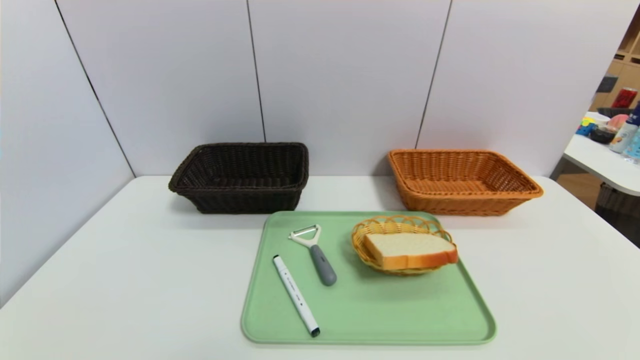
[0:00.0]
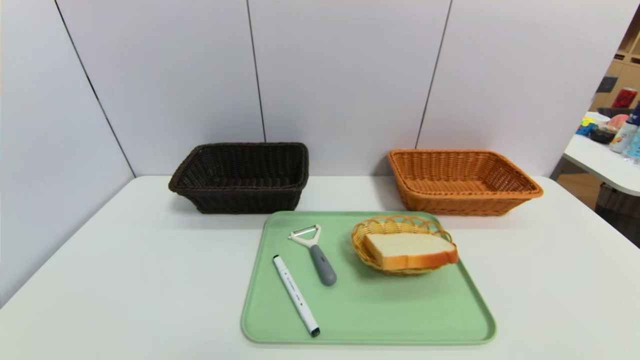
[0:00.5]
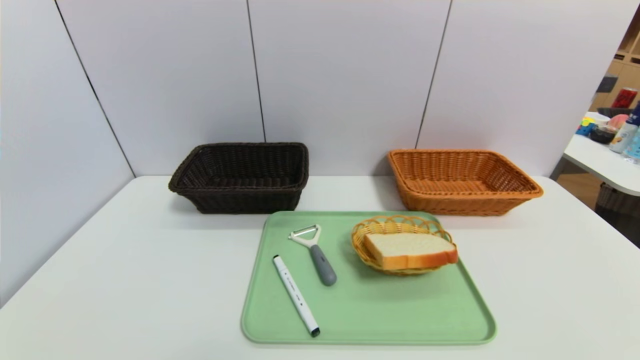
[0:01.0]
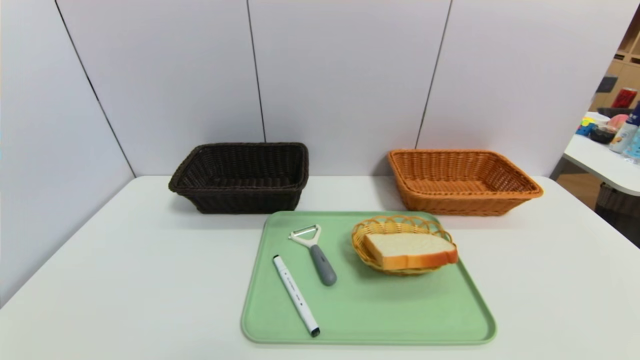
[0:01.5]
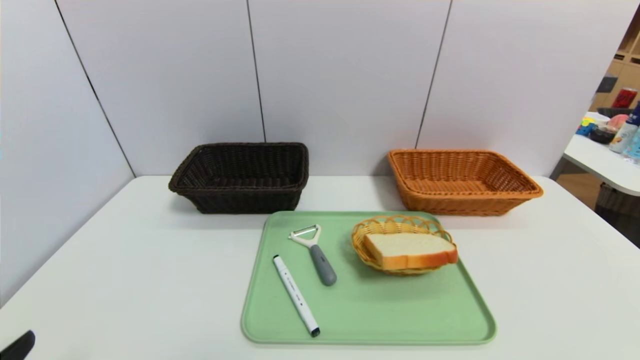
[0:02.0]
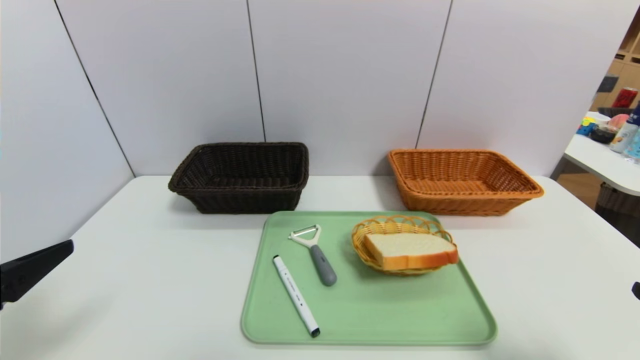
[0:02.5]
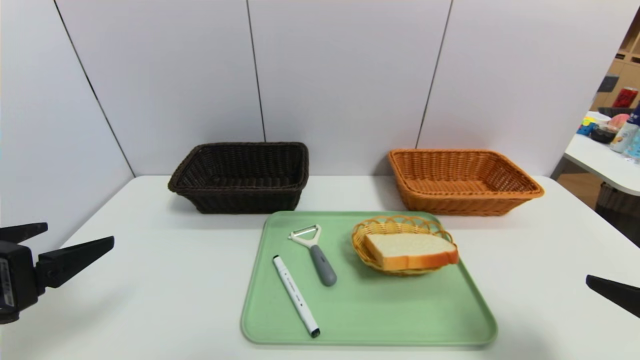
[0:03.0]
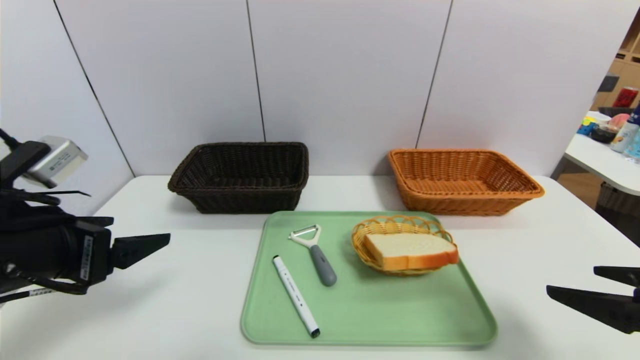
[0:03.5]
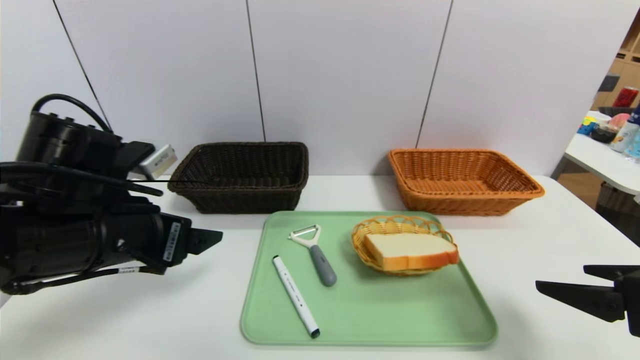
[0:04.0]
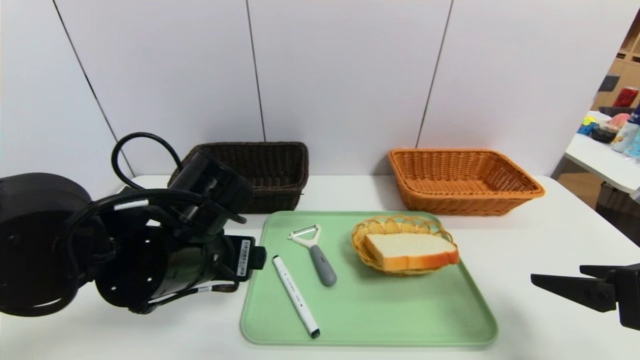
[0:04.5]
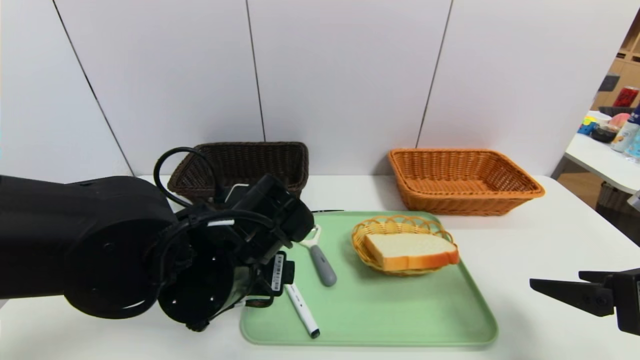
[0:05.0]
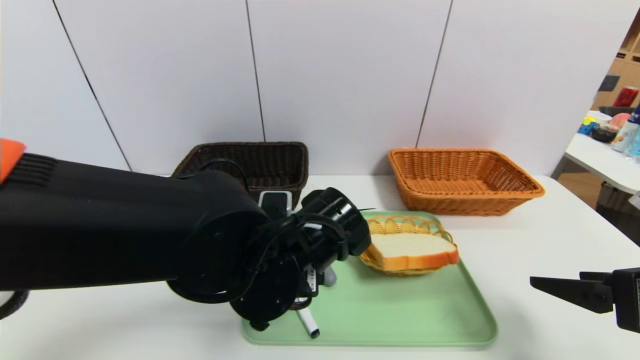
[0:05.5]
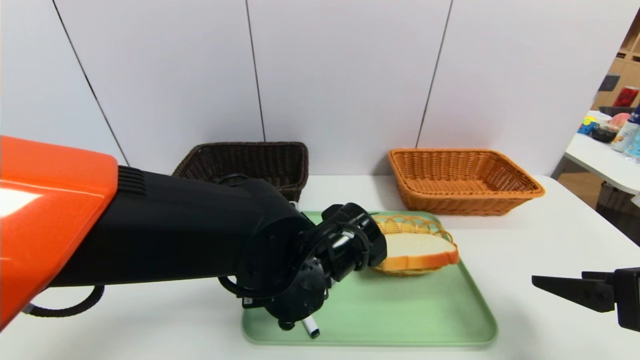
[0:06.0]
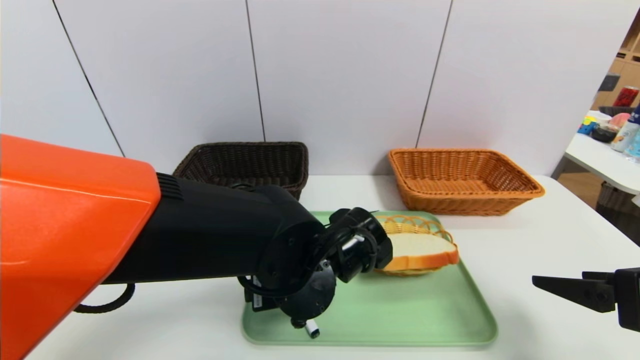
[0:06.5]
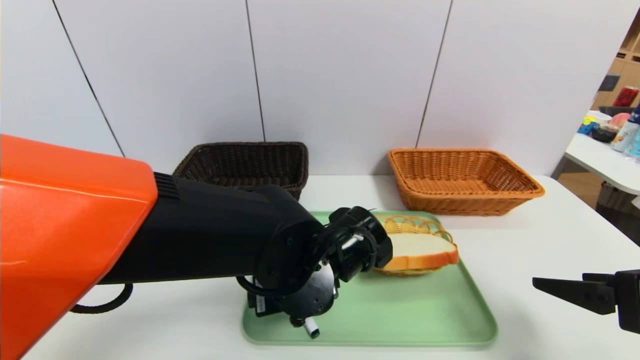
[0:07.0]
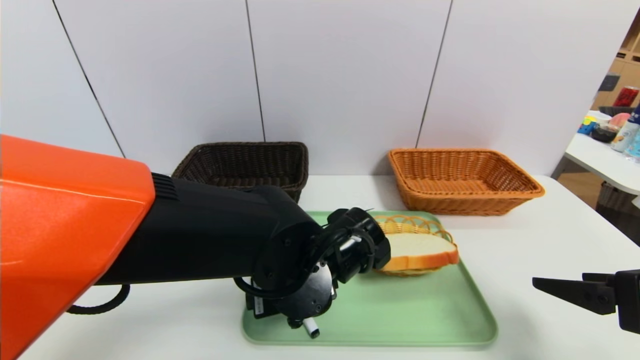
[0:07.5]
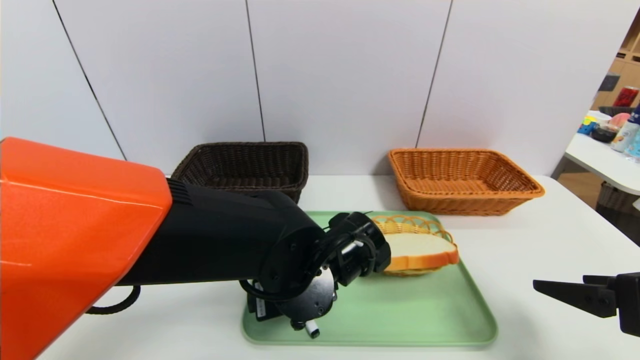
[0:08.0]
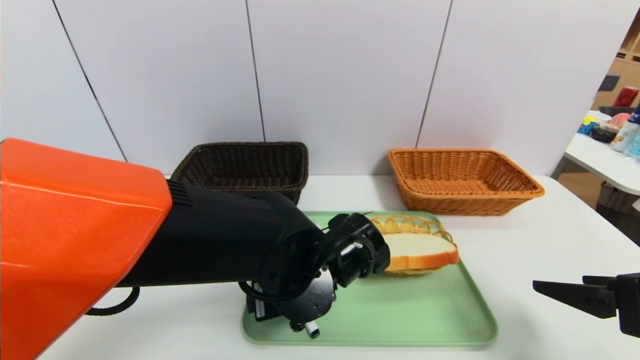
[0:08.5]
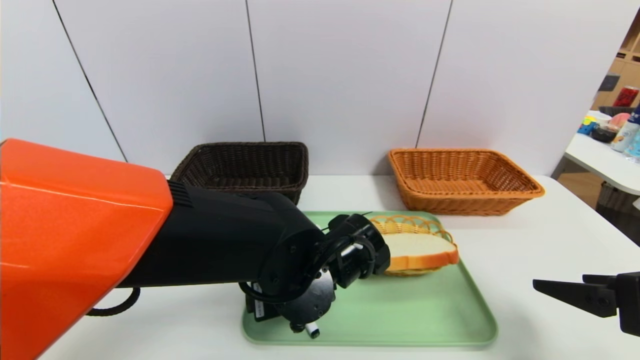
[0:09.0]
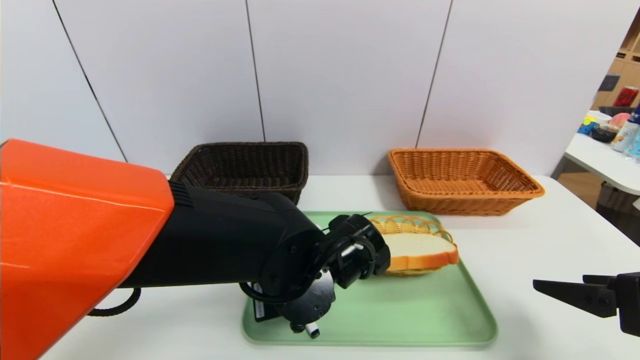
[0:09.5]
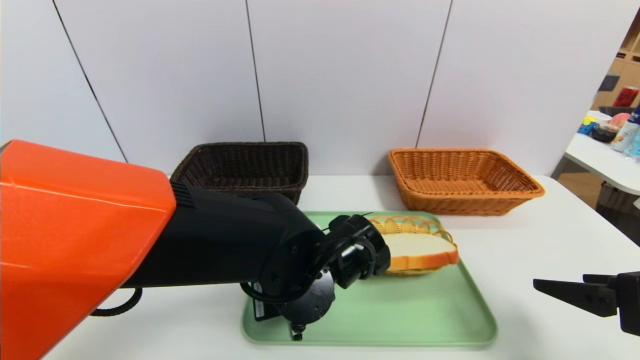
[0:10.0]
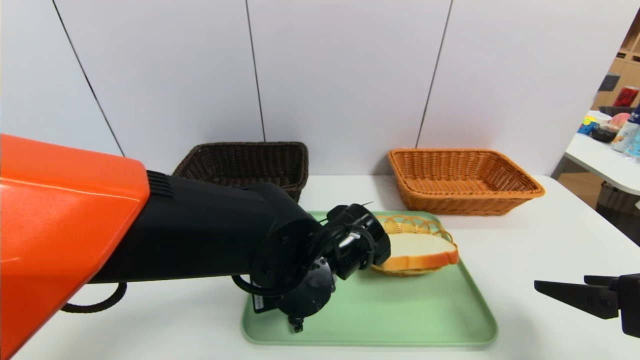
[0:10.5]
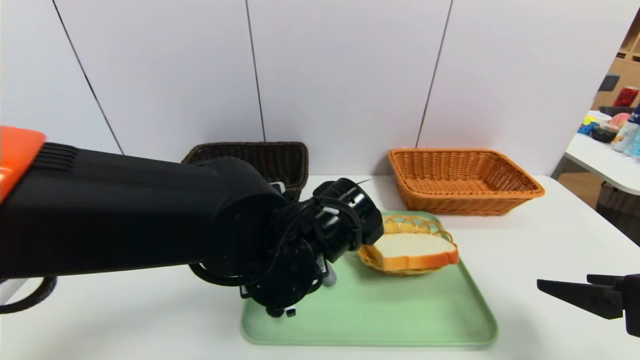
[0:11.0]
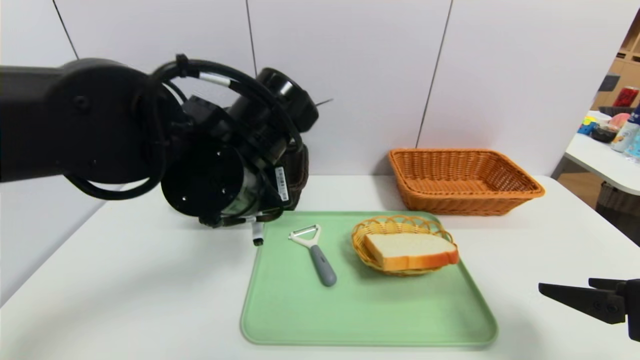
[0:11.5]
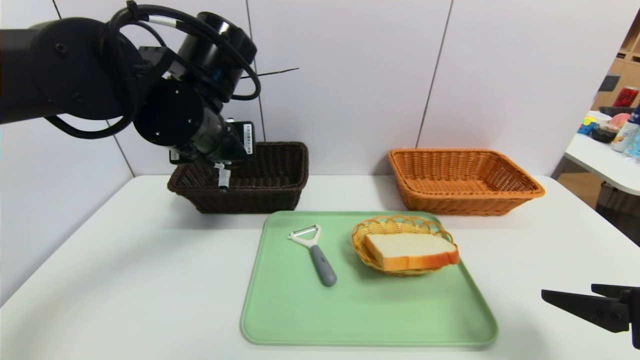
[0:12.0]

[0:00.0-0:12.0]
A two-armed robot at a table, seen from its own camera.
Task of the whole recording: place the food in the right basket with the right gripper, and place the non food items in the left basket with the left gripper.
0:02.0 to 0:04.0: The left gripper moves forward and to the right, roughly 20 cm. The right gripper goes some 15 cm forward.
0:04.0 to 0:06.0: The left gripper shifts roughly 20 cm to the right.
0:06.0 to 0:08.0: The grippers stay close to where they were, moving slightly.
0:08.0 to 0:10.0: The left gripper closes up.
0:10.0 to 0:12.0: The left gripper goes about 20 cm upward, to the left and forward.

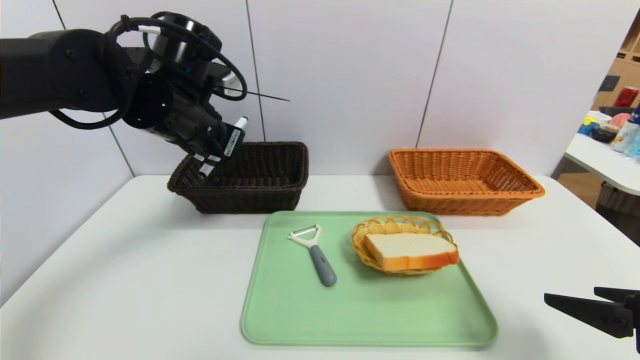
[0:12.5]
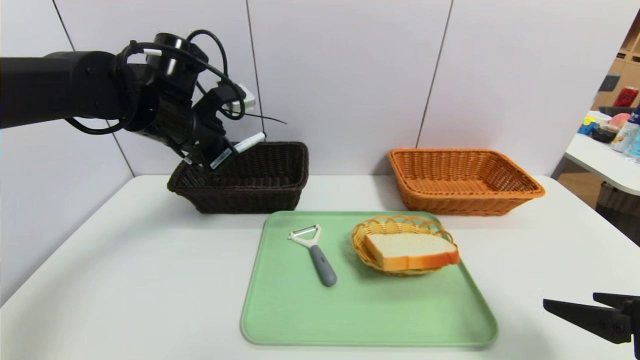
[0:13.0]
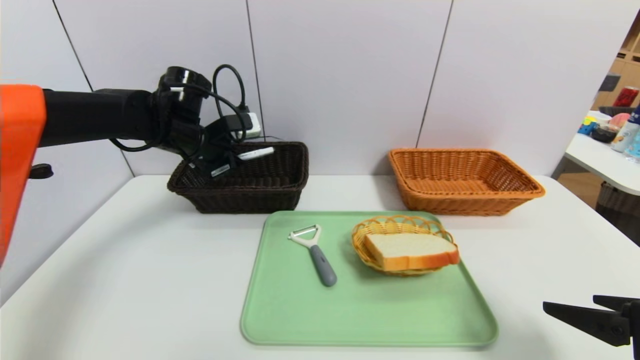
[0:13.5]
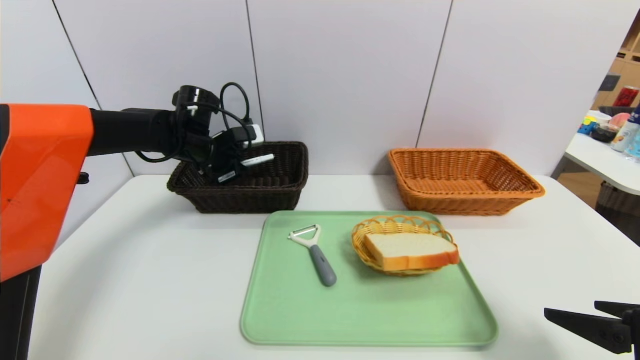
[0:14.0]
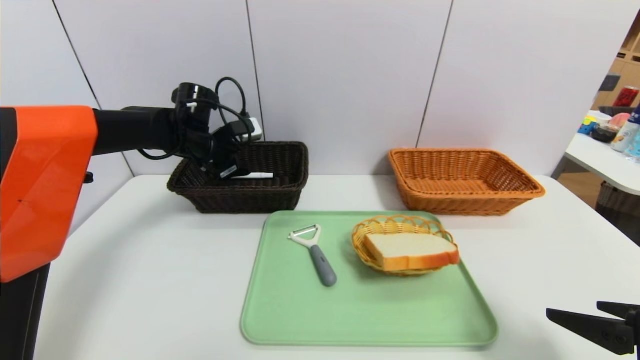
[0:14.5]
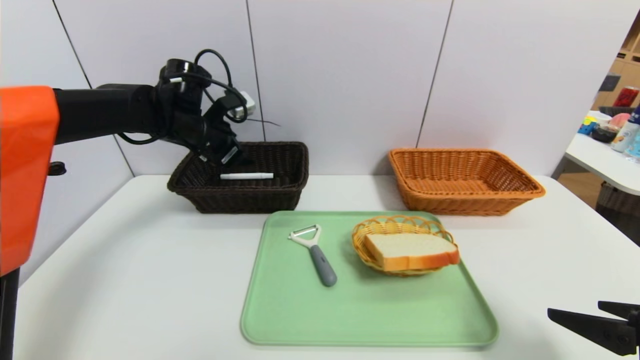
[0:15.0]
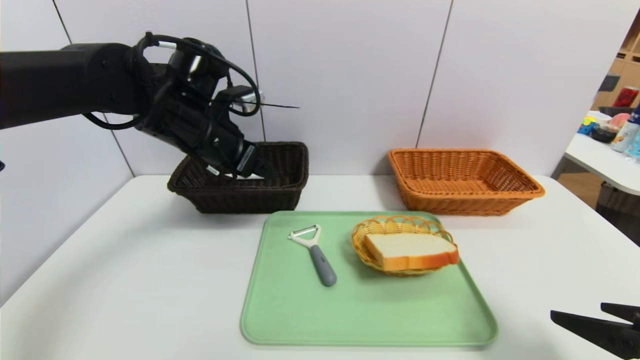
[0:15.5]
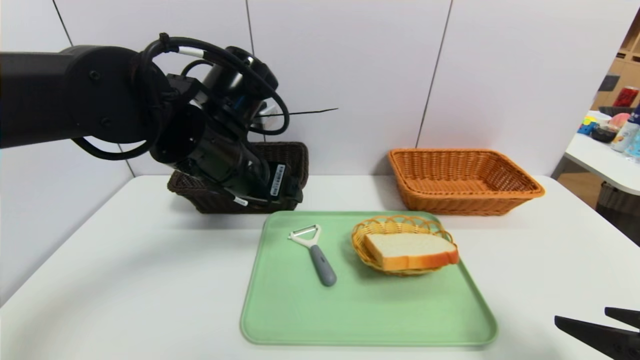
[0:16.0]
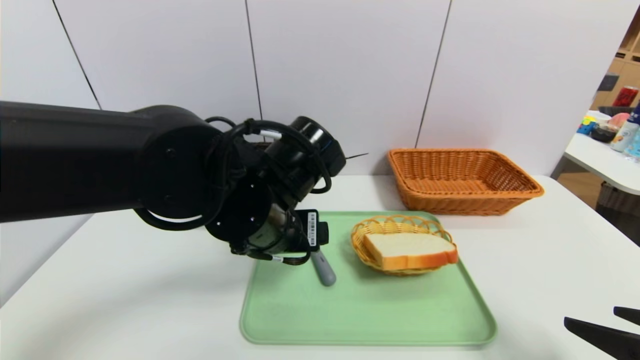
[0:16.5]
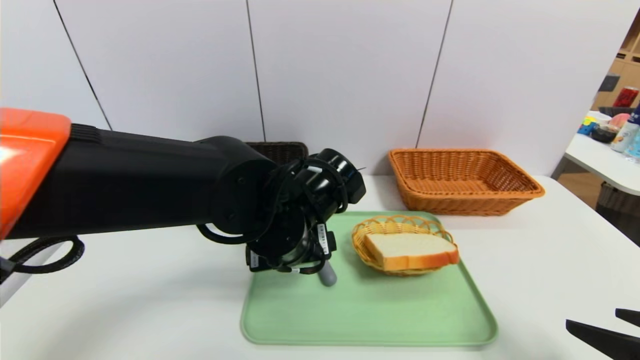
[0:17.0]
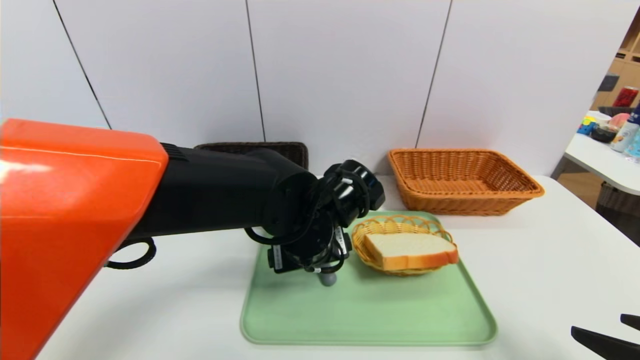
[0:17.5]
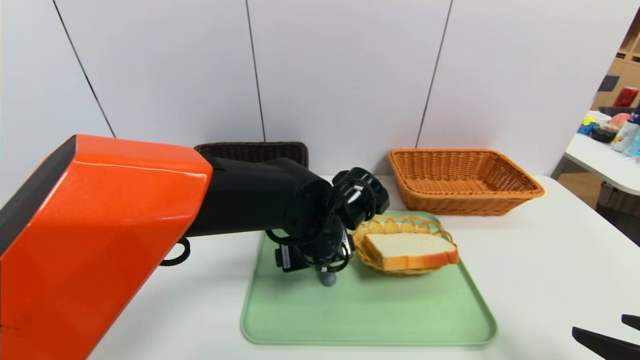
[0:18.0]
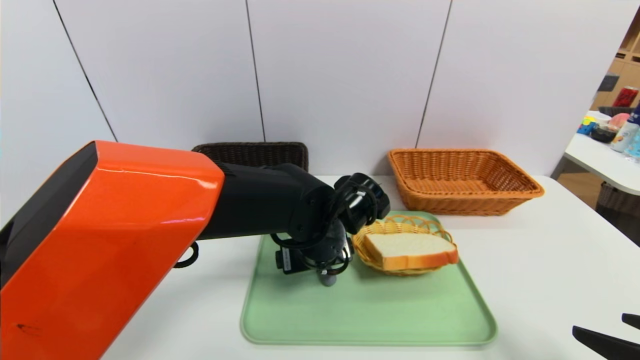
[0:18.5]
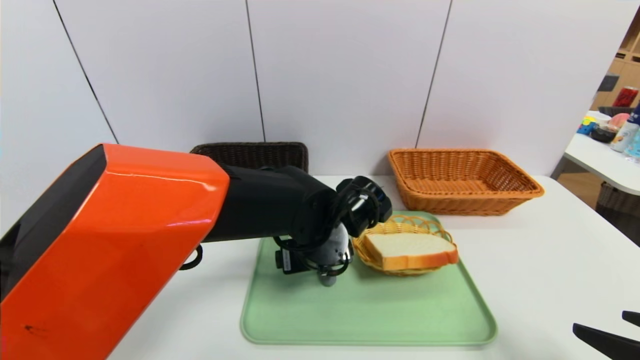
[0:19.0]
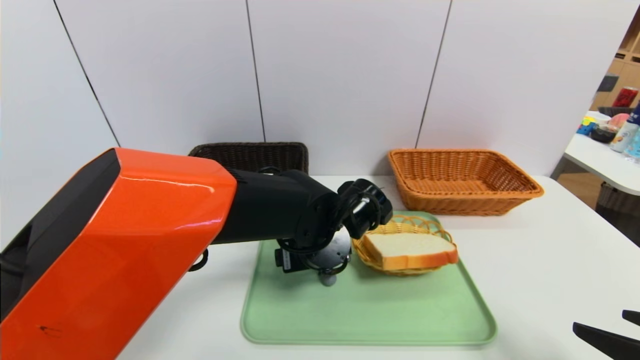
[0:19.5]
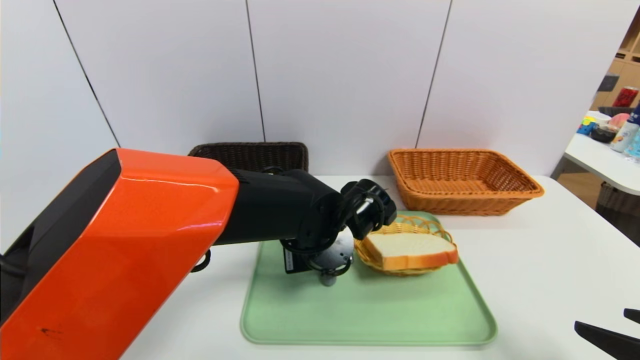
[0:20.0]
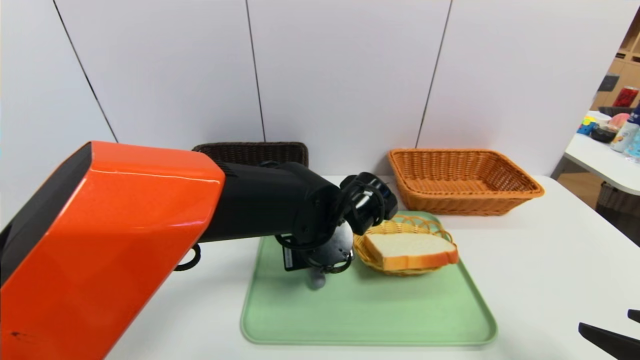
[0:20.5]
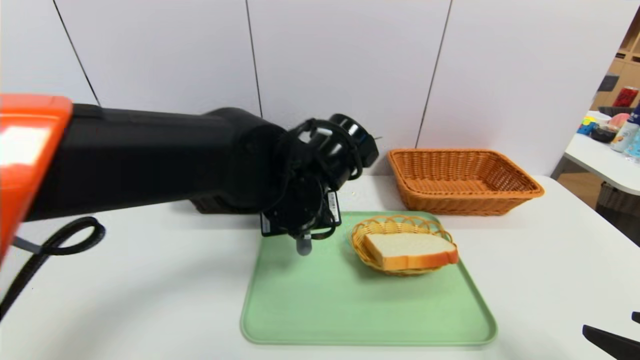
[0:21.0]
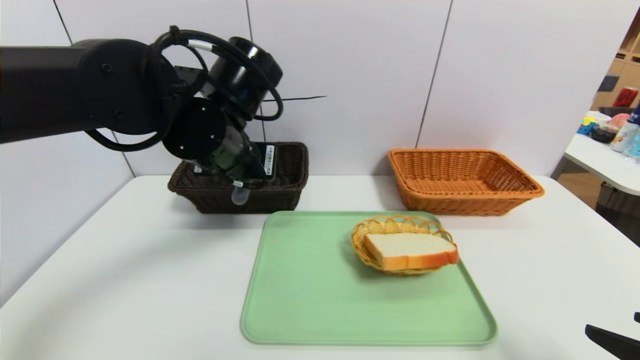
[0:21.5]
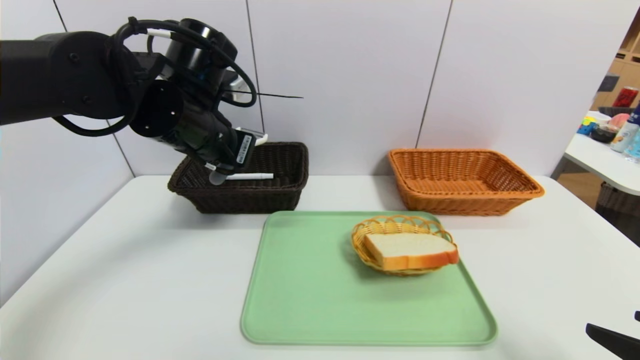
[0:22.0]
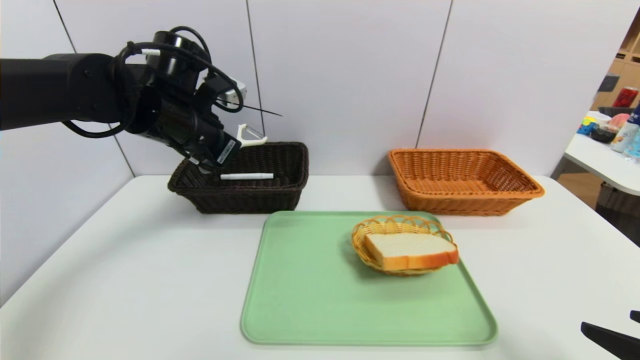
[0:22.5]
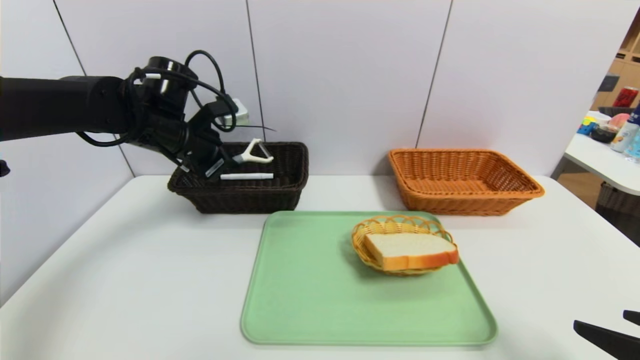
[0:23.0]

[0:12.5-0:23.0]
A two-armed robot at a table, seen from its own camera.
Task of the whole recording: place the food in the right basket with the right gripper, and place the non food items in the left basket with the left gripper.
Step, 0:12.5 to 0:14.5: Grasp the pen container and put it in the left basket.
0:12.5 to 0:14.5: The left gripper shifts approximately 15 cm forward and downward, and opens up.
0:14.5 to 0:16.5: The left gripper is displaced backward and to the right by some 25 cm.
0:16.5 to 0:19.0: The left gripper travels downward and to the right by some 10 cm.
0:19.0 to 0:21.0: The left gripper goes roughly 10 cm upward, and closes its fingers.
0:21.0 to 0:23.0: The left gripper travels to the left and forward by roughly 25 cm.
